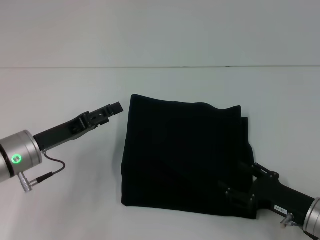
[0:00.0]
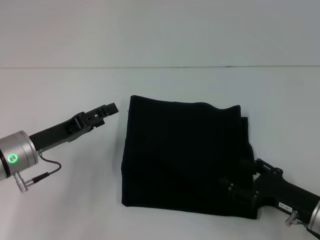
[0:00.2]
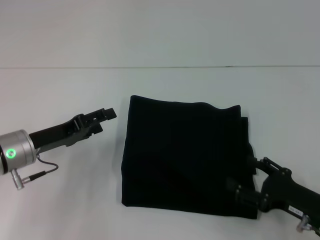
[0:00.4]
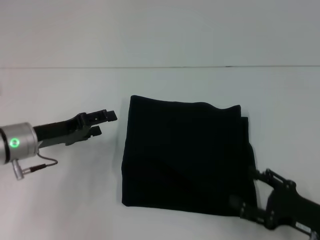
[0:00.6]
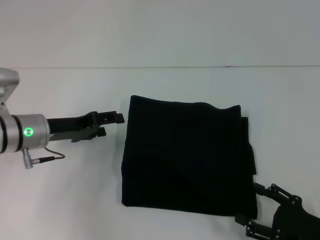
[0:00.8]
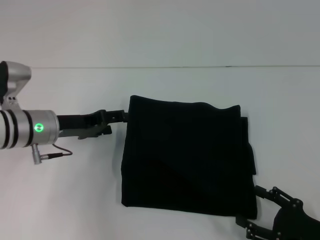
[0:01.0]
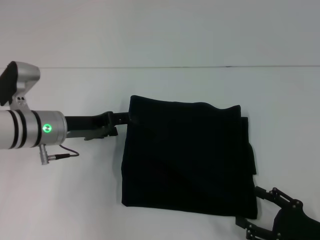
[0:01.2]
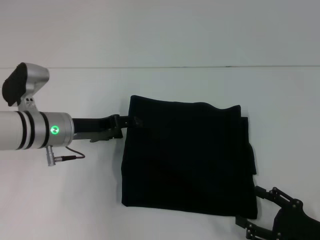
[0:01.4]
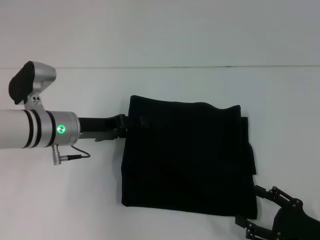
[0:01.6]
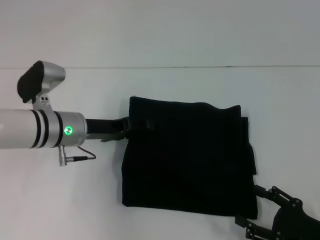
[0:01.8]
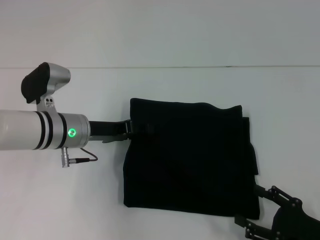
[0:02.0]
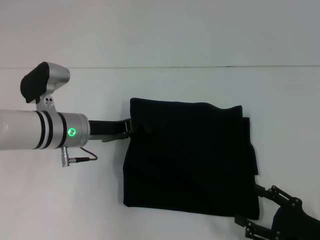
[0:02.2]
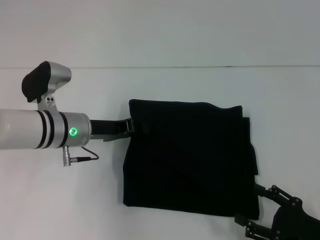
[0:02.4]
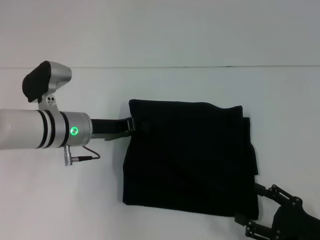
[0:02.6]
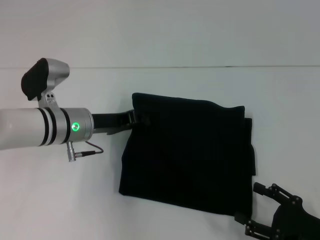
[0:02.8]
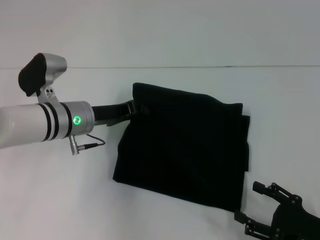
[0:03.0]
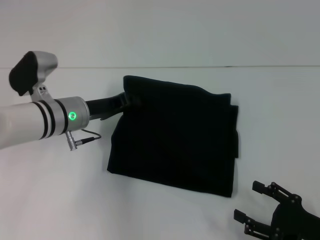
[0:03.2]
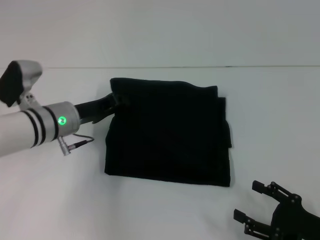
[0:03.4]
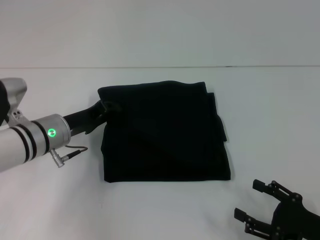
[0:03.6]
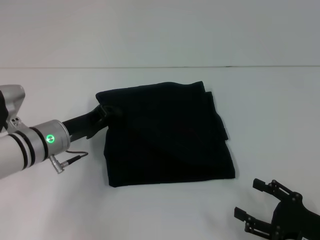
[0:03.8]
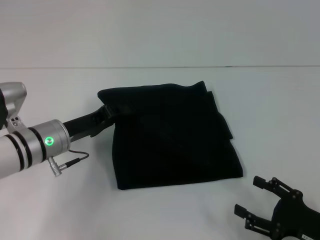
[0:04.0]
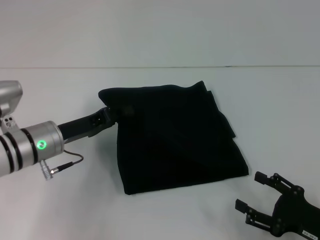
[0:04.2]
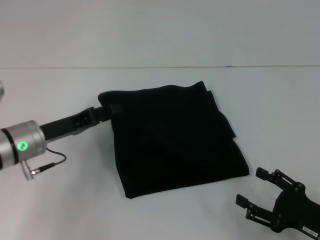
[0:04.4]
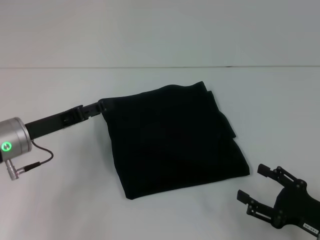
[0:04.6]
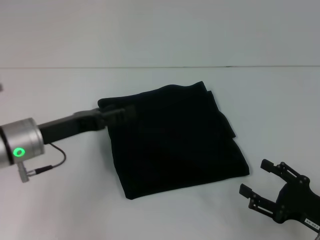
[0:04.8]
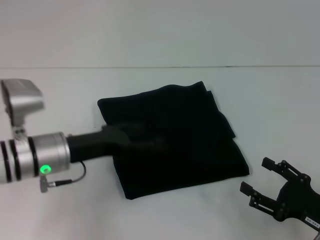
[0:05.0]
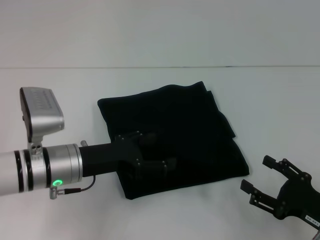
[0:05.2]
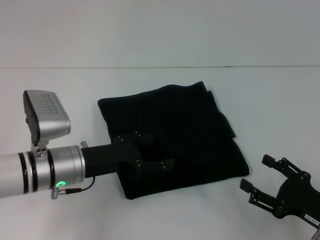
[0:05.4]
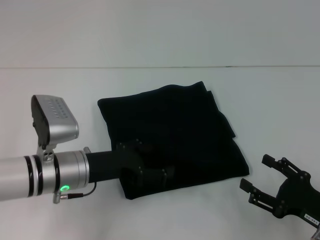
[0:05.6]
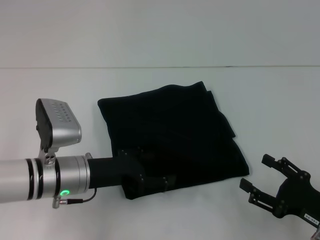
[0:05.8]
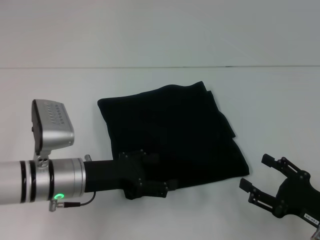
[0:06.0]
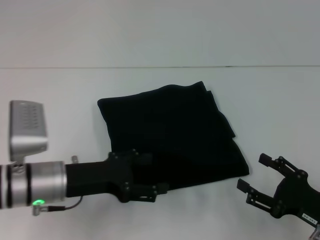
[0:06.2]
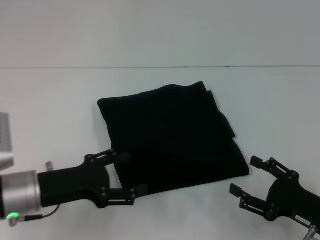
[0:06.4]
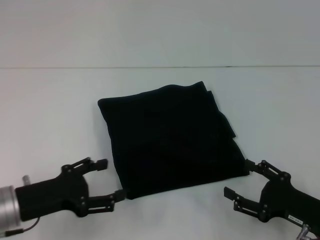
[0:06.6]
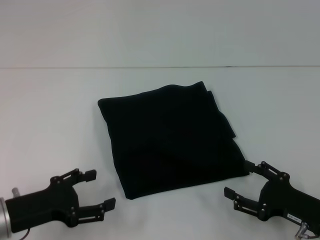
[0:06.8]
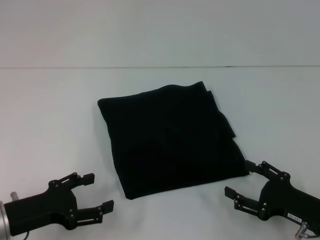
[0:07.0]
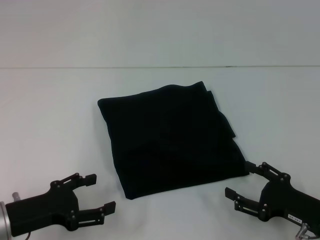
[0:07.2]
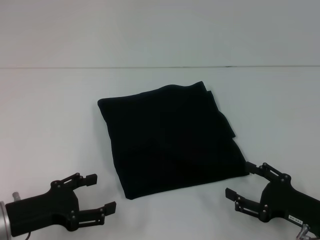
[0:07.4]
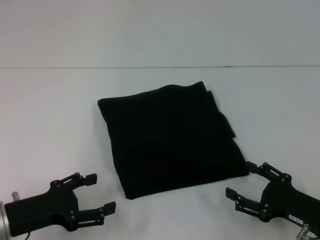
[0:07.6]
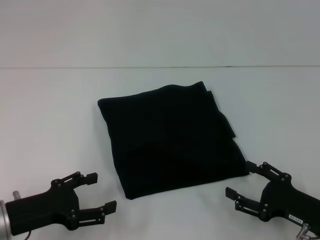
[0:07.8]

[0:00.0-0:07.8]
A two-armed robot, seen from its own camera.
0:00.0 to 0:01.6: The left gripper travels forward by roughly 5 cm. The right gripper heads backward, covering approximately 5 cm.
0:01.6 to 0:03.2: The left gripper closes.
0:03.2 to 0:04.6: The left gripper is displaced to the left and backward by about 10 cm, and opens up.
0:04.6 to 0:06.2: The left gripper is displaced to the right by some 5 cm, and opens its fingers.
0:06.2 to 0:07.8: The left gripper goes roughly 10 cm to the left and backward.
